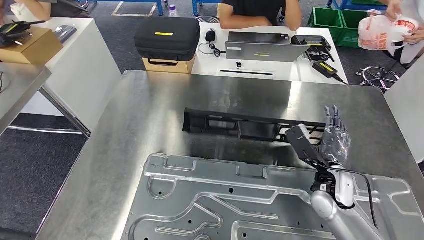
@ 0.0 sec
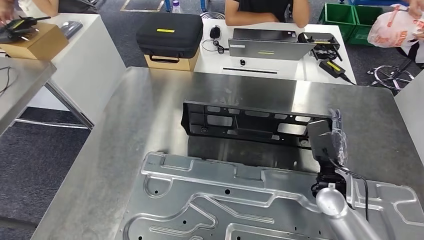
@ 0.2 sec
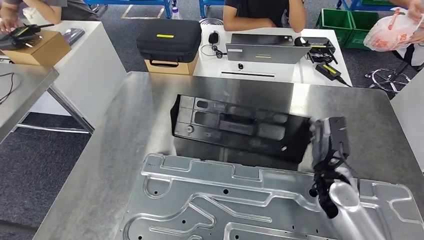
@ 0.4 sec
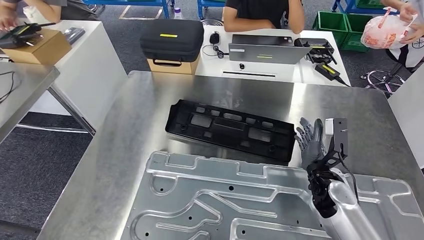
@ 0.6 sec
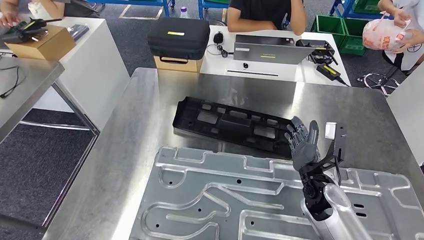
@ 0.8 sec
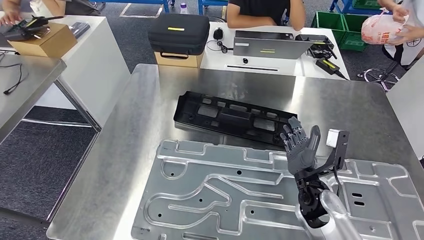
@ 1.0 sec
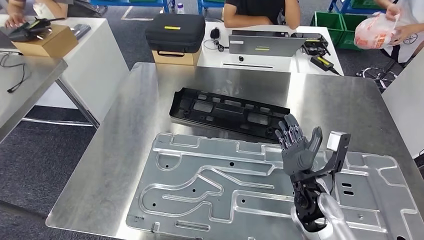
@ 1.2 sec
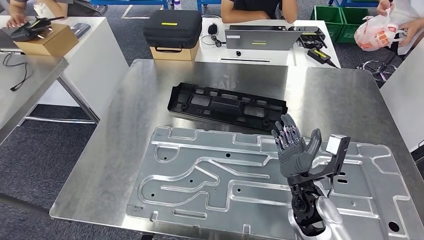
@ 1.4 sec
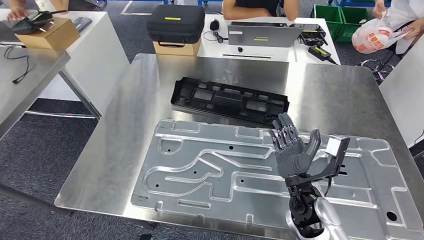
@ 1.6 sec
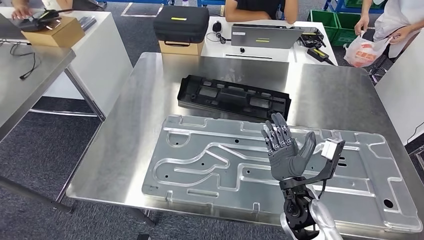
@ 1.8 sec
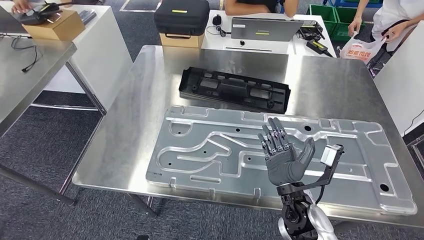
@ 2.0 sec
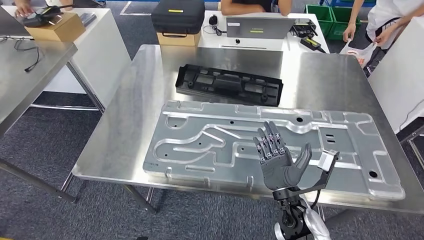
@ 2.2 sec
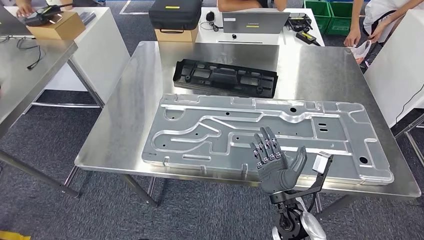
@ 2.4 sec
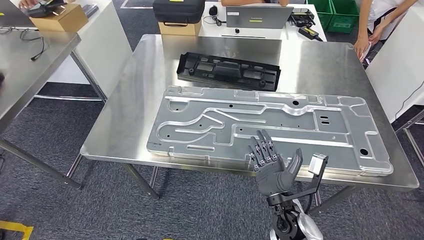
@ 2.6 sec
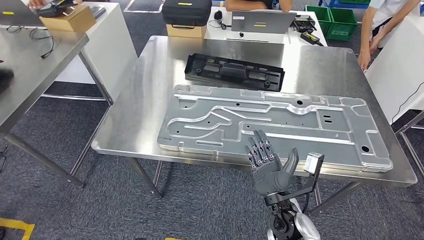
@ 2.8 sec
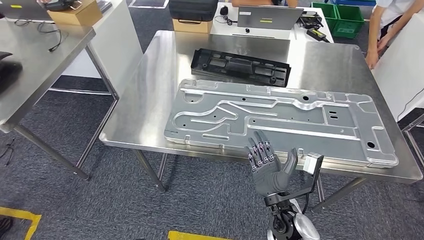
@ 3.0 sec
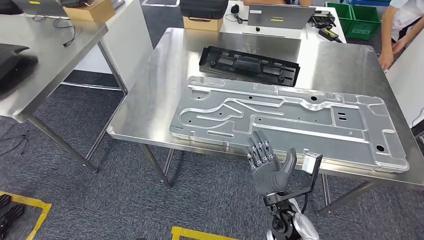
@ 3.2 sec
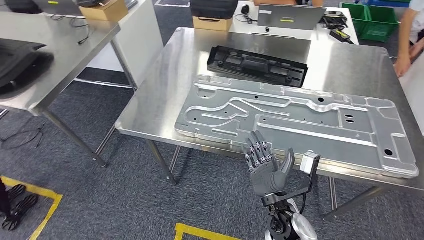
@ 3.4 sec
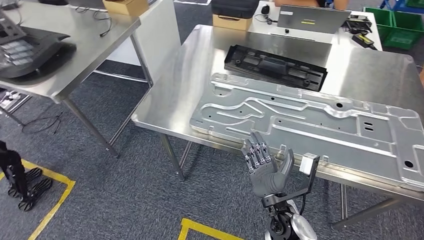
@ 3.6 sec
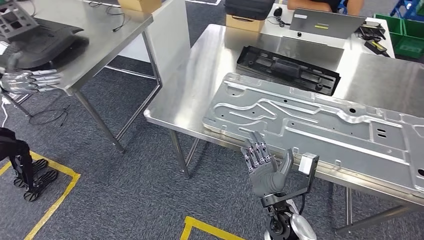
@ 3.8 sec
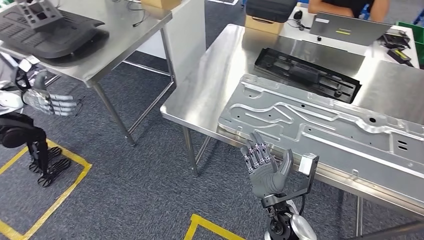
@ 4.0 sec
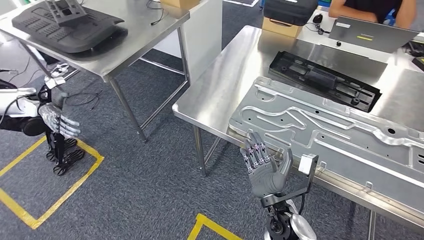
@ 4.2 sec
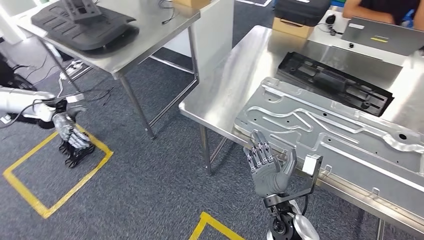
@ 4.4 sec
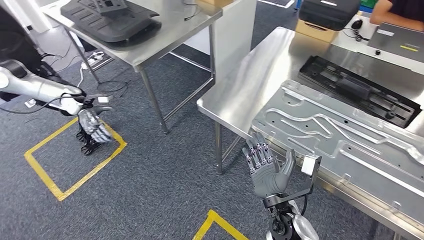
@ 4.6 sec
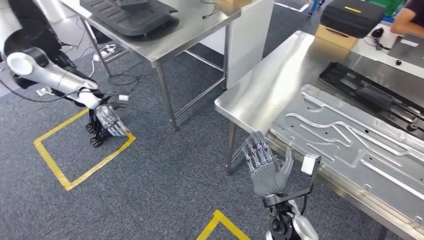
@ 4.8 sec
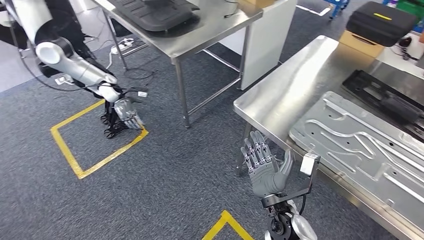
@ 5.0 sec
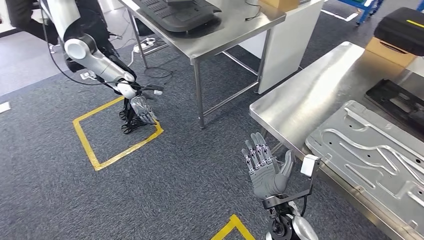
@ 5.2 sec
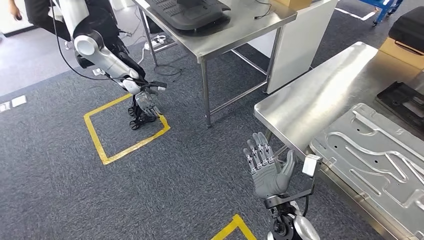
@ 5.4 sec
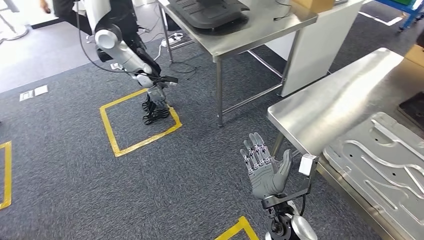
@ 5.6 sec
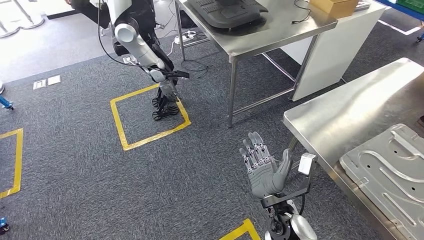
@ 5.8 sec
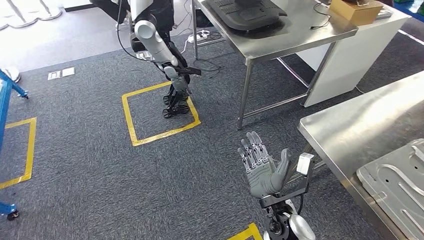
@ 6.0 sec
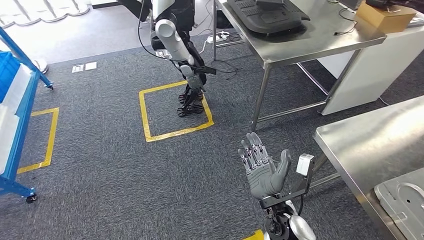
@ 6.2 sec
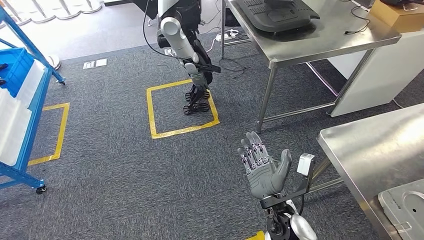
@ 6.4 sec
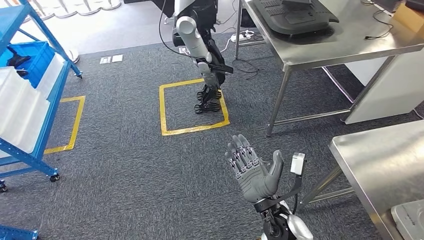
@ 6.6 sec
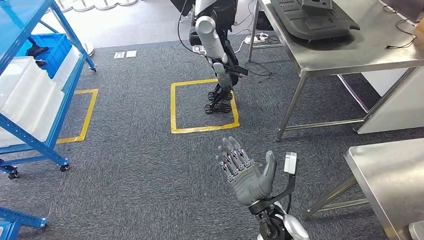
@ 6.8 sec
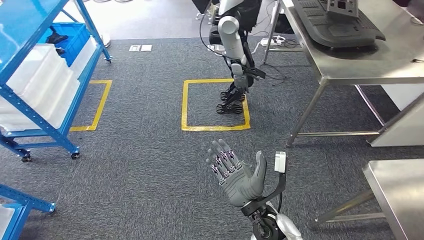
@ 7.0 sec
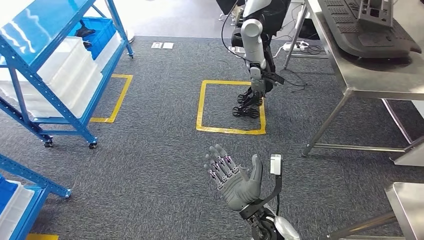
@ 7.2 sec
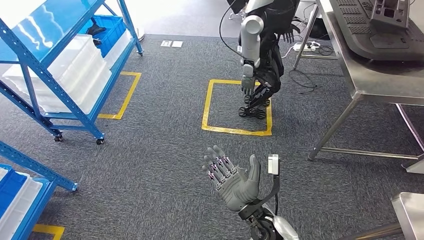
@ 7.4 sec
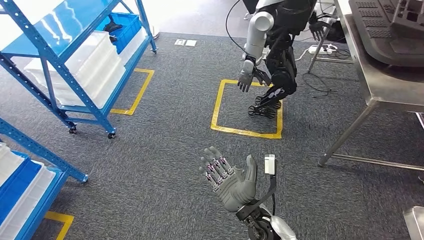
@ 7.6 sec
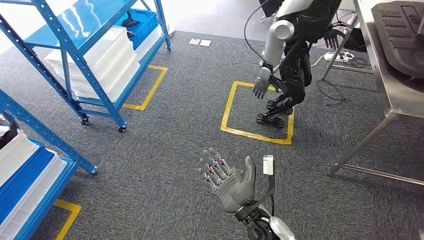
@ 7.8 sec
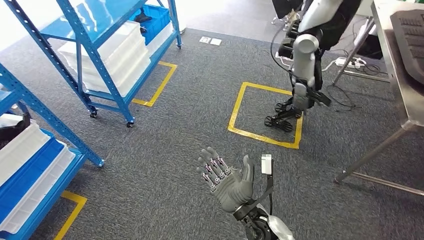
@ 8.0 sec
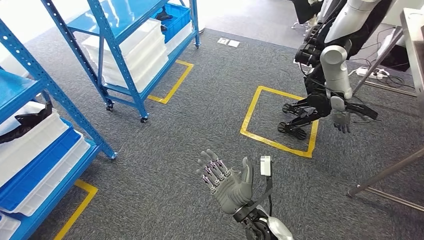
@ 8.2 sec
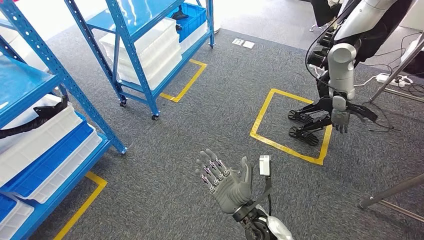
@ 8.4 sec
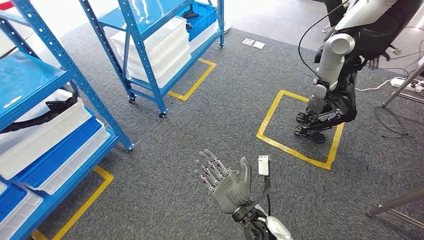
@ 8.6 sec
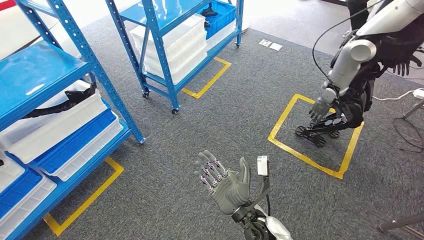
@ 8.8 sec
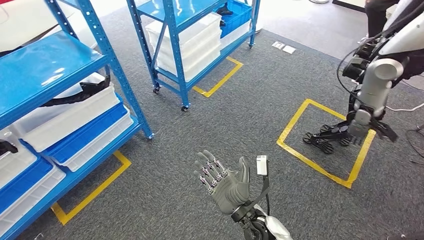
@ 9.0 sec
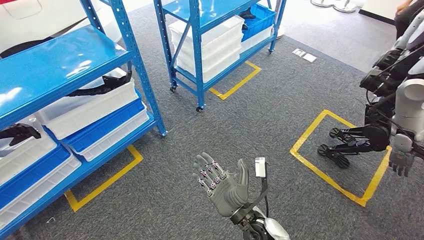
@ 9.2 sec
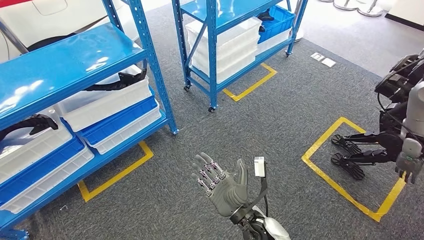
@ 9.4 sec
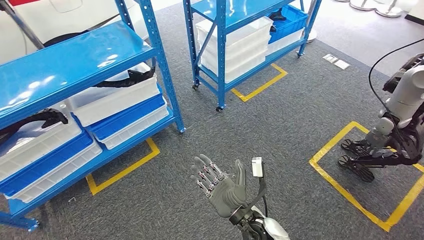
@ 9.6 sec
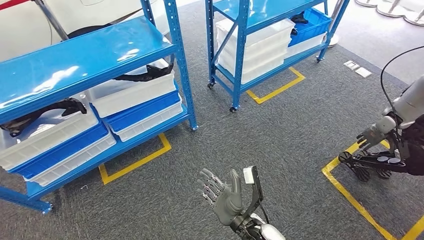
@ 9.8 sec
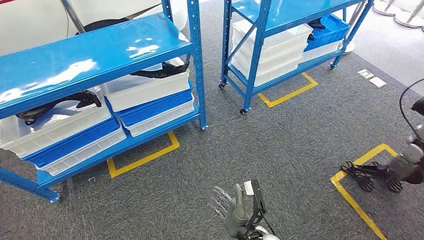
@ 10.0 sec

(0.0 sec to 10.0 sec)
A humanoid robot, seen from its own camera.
Step, 0.0 sec - 5.0 sec: Insert the large material into the corresponding slot on the workbench.

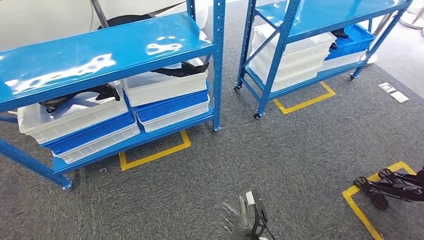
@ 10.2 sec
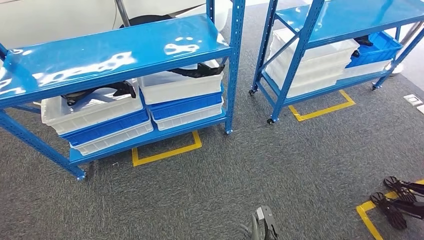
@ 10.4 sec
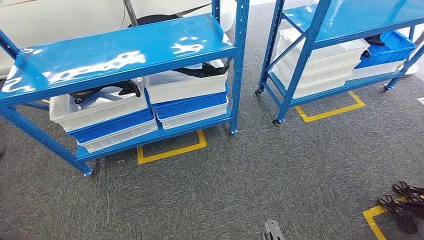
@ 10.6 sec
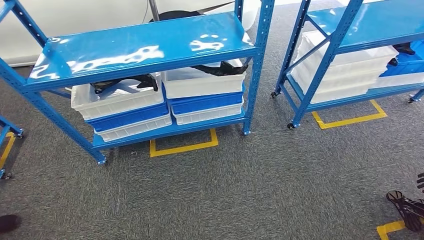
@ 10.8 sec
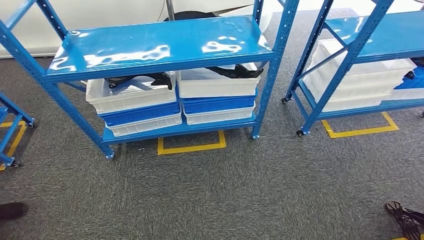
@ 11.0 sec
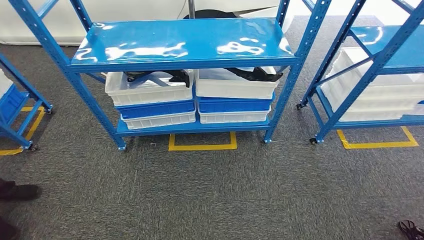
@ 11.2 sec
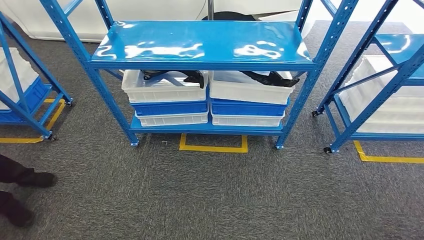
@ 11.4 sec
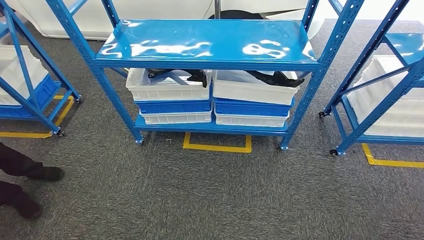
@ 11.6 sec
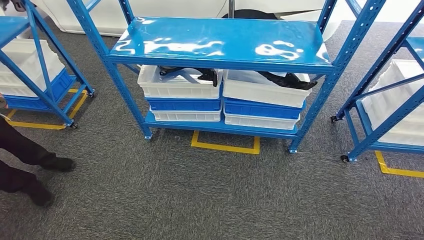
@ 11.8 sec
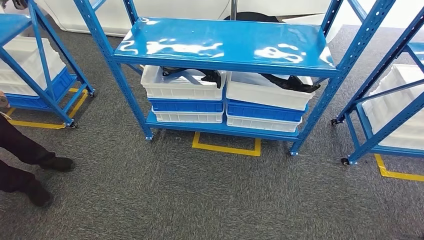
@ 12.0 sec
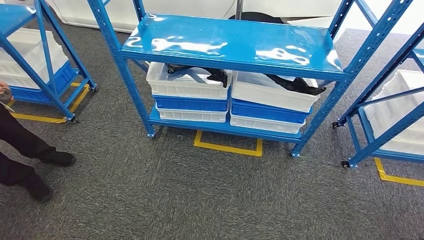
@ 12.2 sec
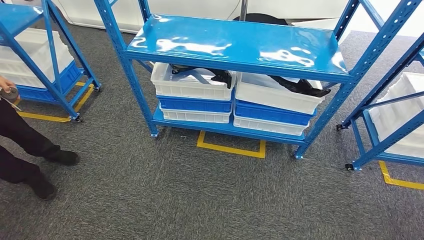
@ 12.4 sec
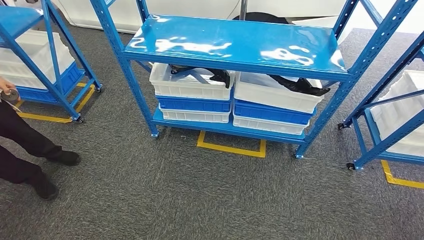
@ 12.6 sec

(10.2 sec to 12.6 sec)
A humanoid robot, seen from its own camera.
Step, 10.2 sec - 12.6 sec: Return to the initial position at the shelf.
